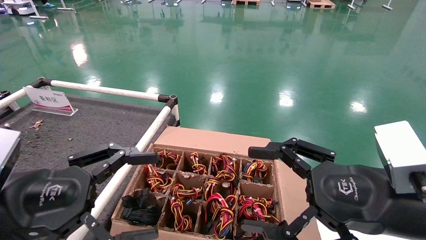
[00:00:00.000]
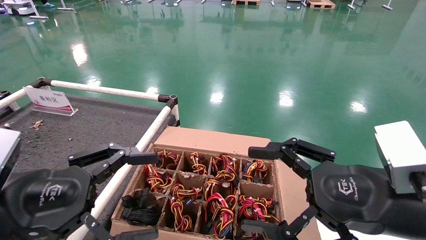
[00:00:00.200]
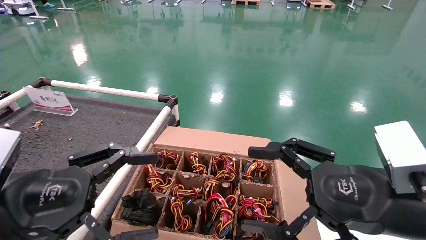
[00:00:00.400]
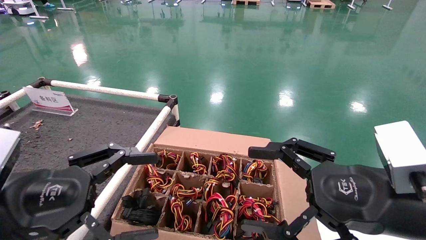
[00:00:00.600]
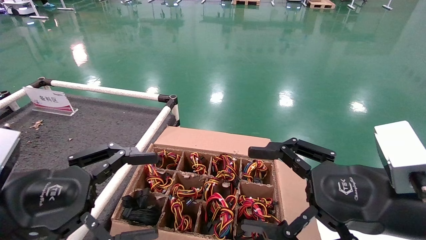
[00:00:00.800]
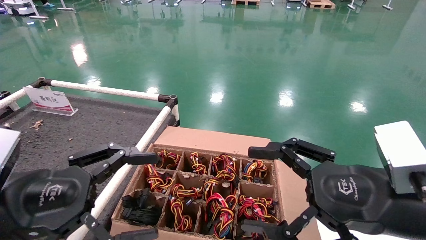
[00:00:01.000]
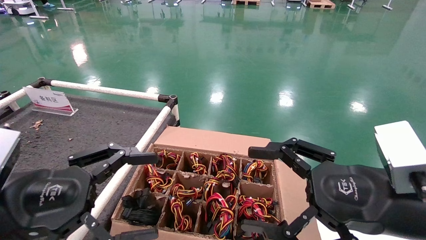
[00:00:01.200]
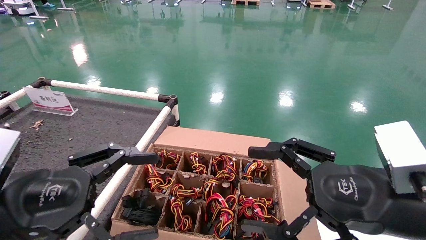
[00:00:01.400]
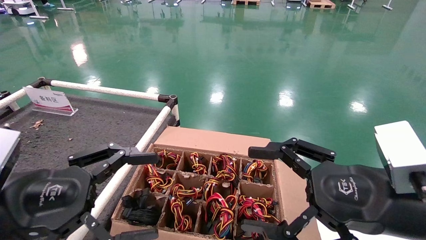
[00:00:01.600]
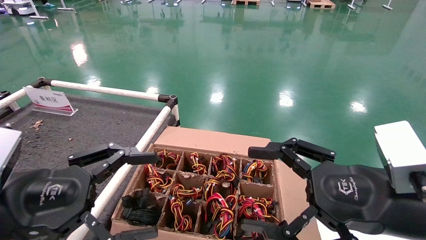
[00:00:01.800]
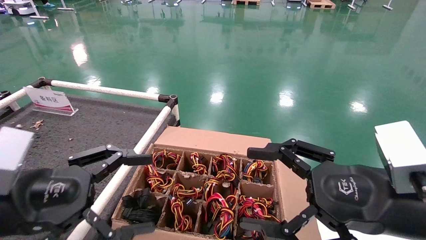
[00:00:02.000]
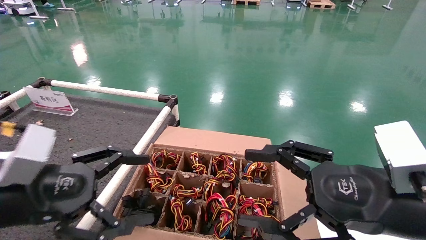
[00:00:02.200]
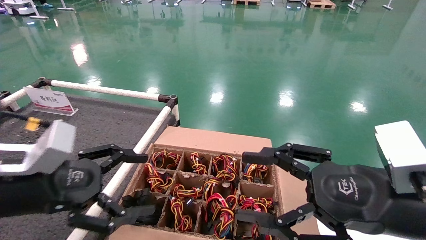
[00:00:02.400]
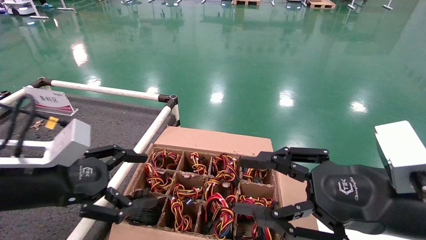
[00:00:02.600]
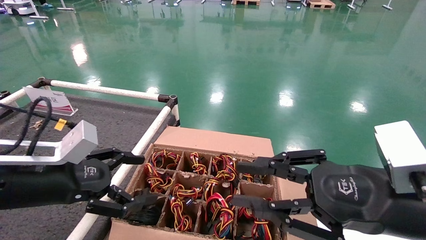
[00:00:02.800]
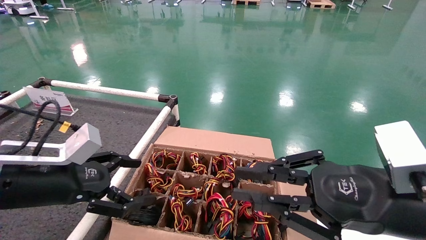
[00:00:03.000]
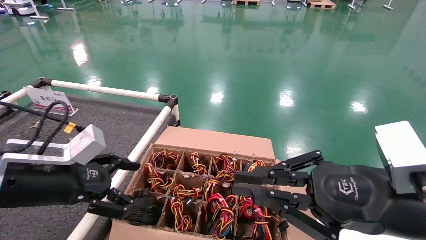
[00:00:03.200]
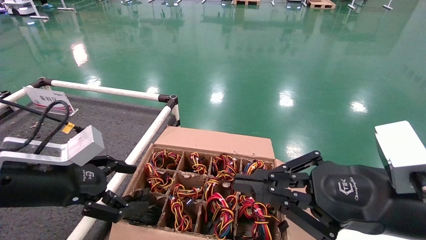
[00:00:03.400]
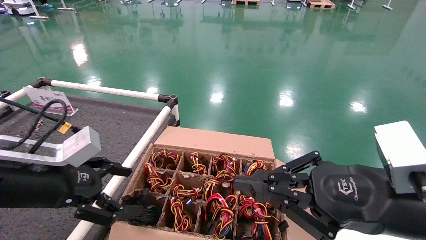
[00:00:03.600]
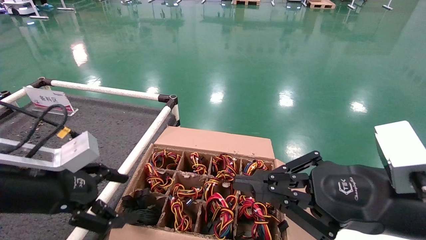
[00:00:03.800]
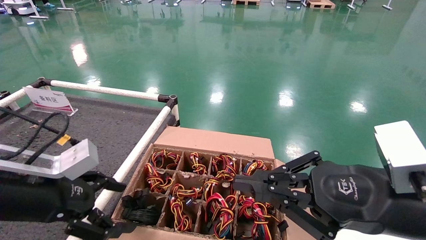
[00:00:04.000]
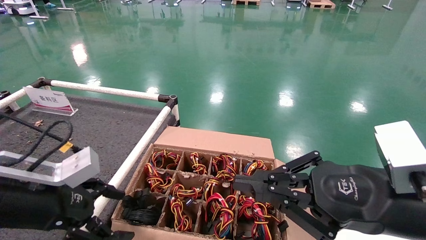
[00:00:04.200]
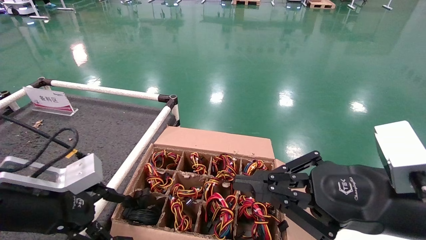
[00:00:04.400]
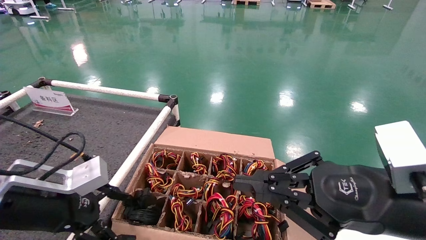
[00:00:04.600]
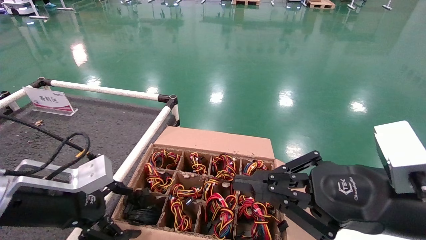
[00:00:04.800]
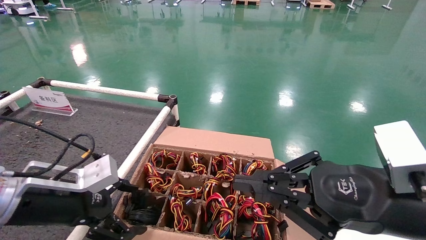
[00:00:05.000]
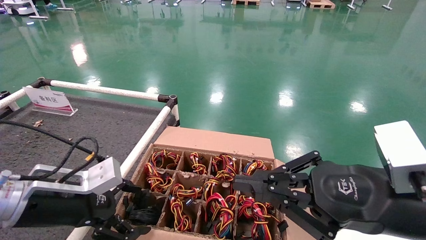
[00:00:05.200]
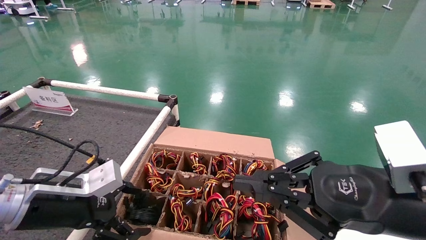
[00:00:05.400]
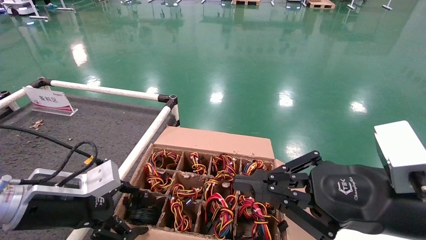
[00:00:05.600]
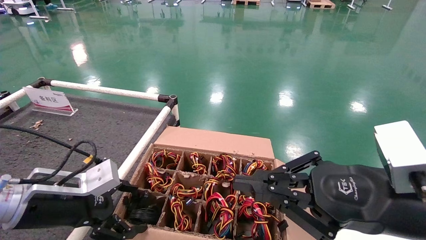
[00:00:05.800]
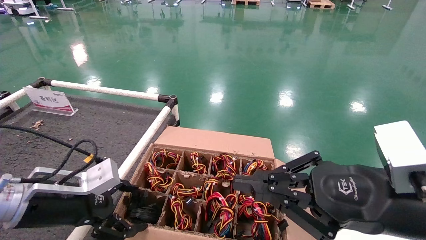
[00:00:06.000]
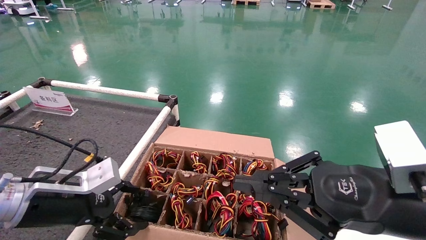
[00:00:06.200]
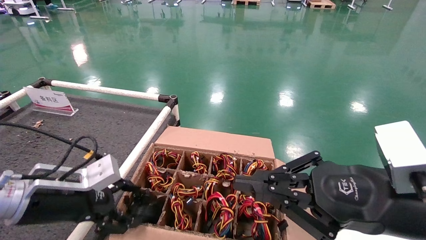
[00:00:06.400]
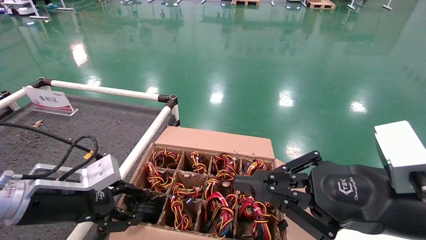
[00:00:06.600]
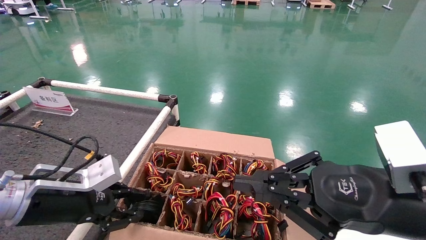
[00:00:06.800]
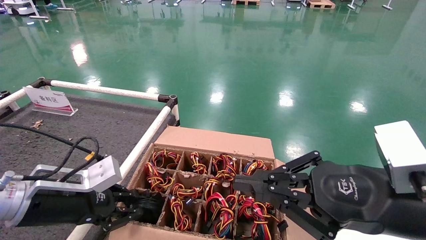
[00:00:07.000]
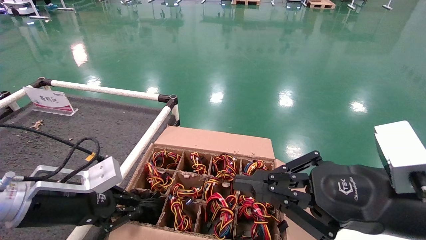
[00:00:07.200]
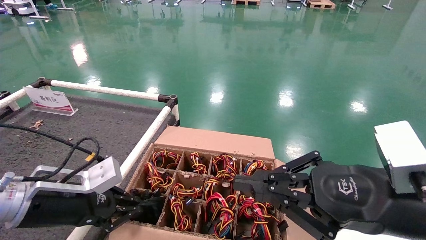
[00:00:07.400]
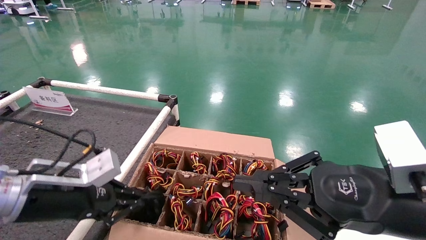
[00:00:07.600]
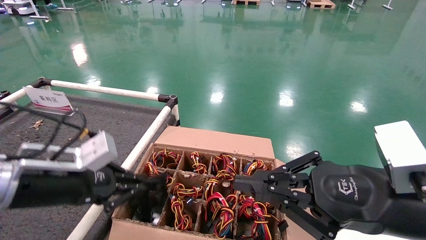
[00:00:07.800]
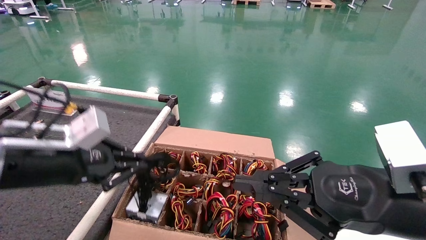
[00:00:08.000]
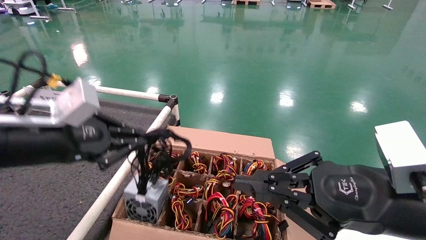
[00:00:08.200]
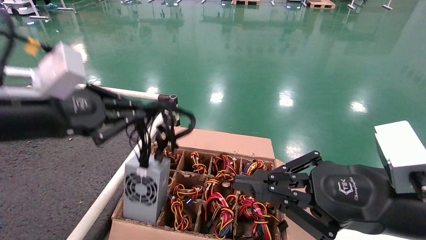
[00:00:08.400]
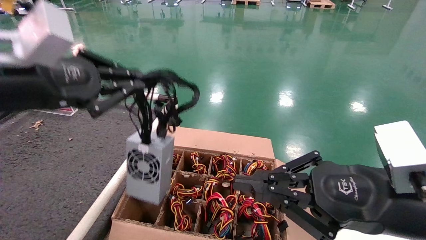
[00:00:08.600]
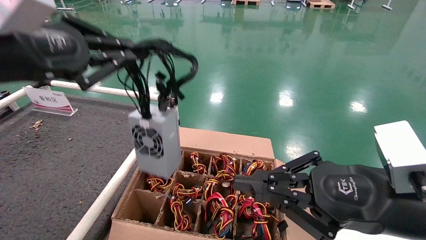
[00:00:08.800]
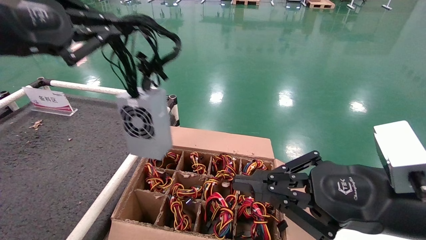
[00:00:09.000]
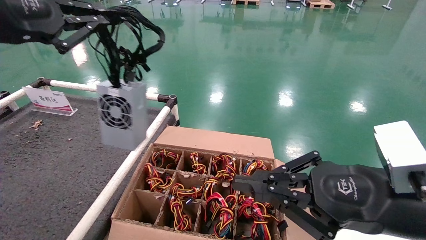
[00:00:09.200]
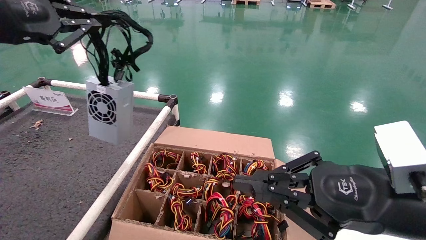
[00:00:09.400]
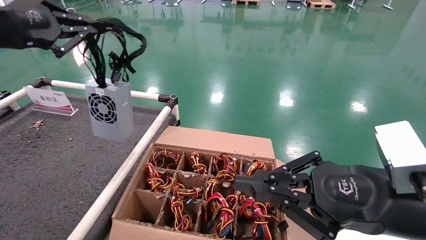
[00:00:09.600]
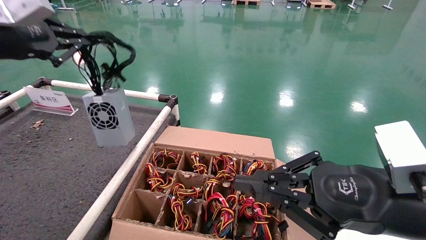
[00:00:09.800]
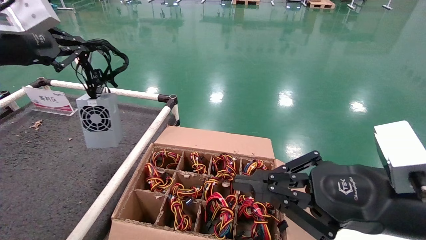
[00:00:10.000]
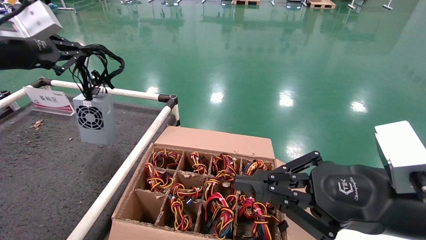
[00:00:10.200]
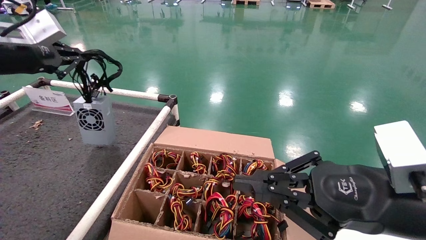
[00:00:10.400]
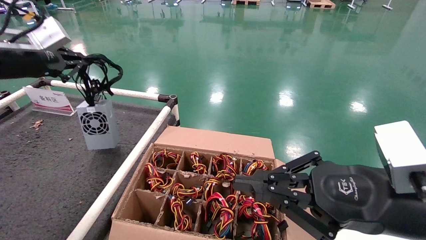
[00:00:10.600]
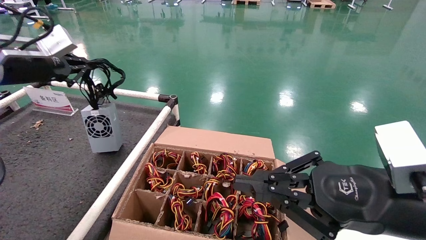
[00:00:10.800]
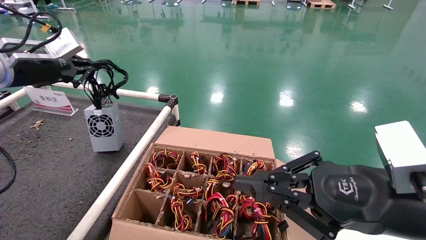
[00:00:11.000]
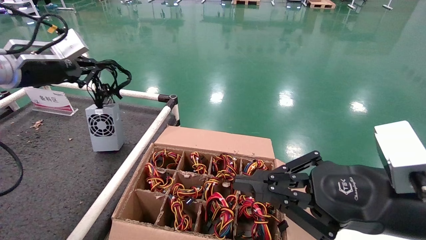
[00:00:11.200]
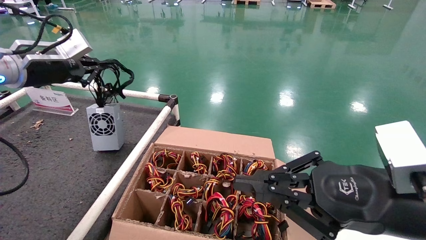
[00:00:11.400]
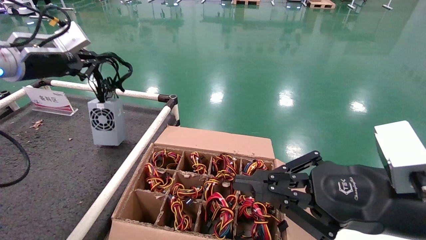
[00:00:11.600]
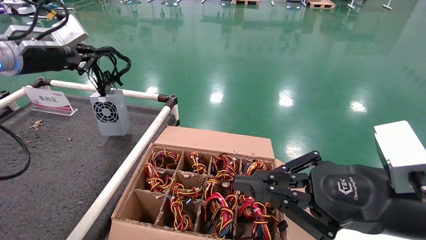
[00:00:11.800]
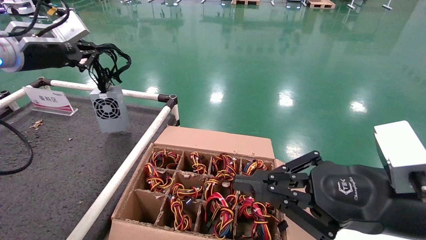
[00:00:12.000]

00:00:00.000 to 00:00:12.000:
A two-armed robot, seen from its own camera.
Step, 00:00:00.000 to 00:00:07.200: Grasp the battery.
00:00:00.000 to 00:00:01.600: The two grippers keep their place.
00:00:01.600 to 00:00:03.000: The right gripper closes. Meanwhile the left gripper is displaced forward by some 5 cm.
00:00:03.000 to 00:00:04.400: The right gripper closes up.
00:00:04.400 to 00:00:06.000: The grippers stay close to where they were, moving slightly.
00:00:06.000 to 00:00:07.600: The left gripper closes up.
00:00:07.600 to 00:00:09.000: The left gripper goes approximately 20 cm upward.
00:00:09.000 to 00:00:10.400: The left gripper heads forward and to the left, covering some 15 cm.
00:00:10.400 to 00:00:12.000: The left gripper heads forward, covering some 5 cm.

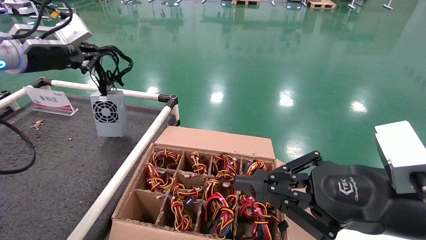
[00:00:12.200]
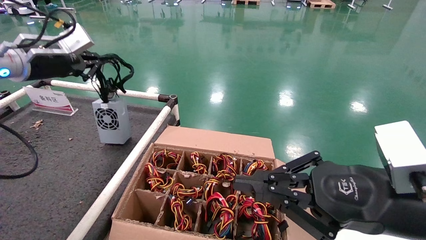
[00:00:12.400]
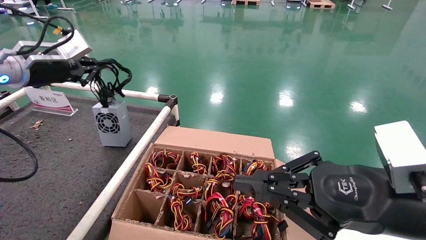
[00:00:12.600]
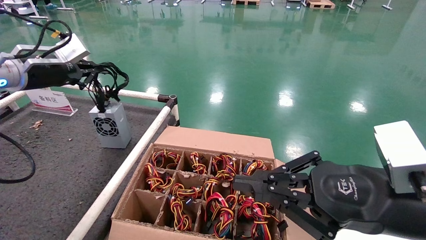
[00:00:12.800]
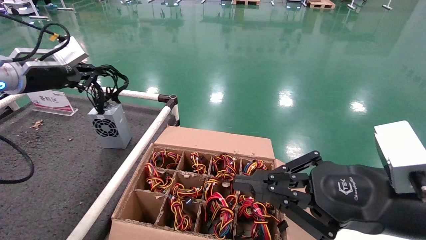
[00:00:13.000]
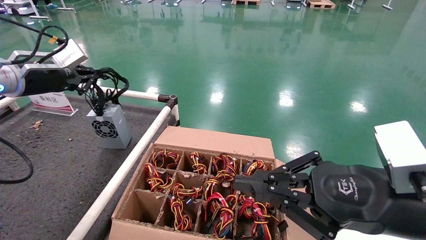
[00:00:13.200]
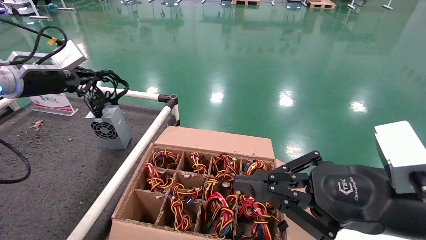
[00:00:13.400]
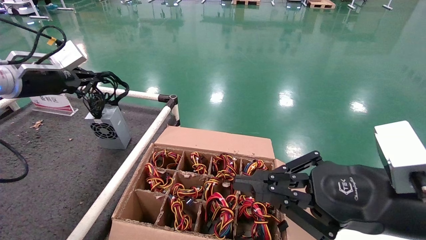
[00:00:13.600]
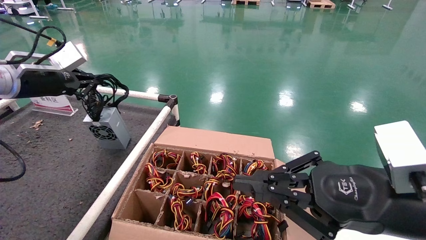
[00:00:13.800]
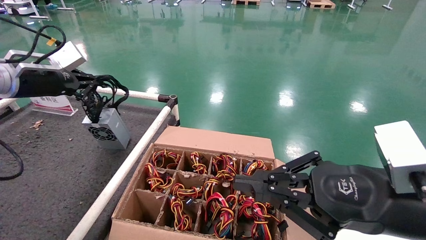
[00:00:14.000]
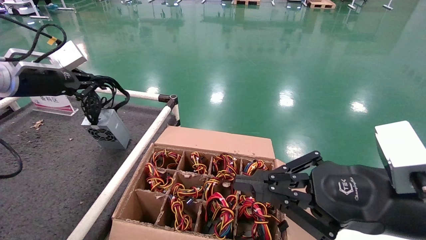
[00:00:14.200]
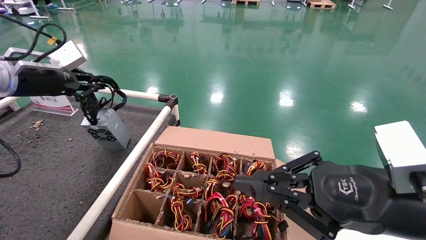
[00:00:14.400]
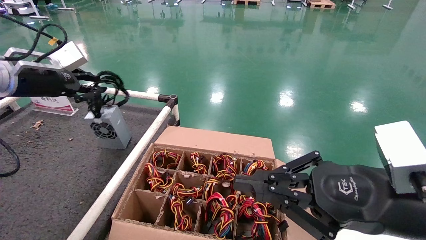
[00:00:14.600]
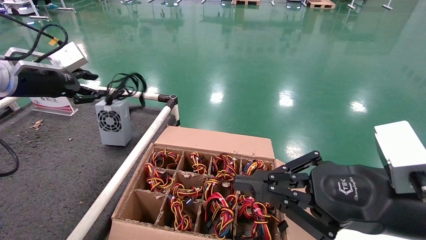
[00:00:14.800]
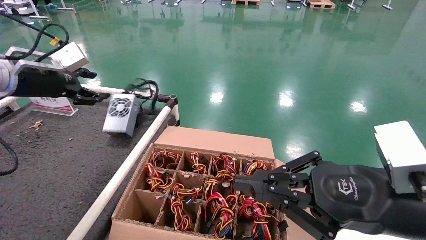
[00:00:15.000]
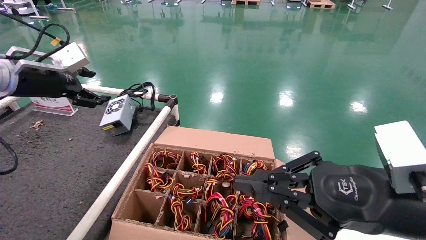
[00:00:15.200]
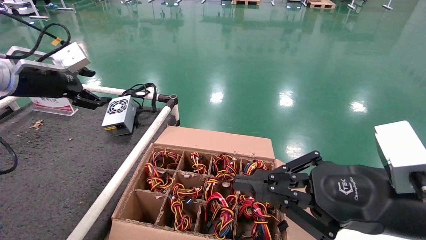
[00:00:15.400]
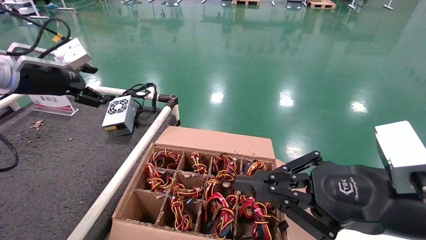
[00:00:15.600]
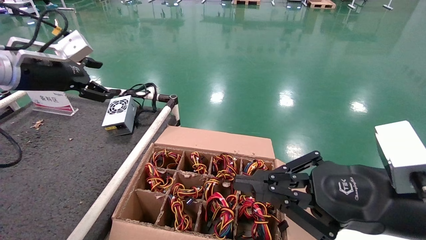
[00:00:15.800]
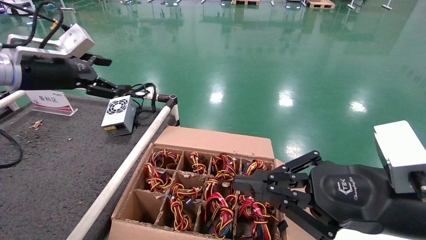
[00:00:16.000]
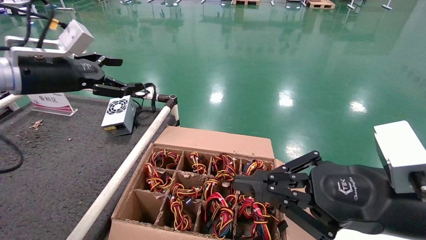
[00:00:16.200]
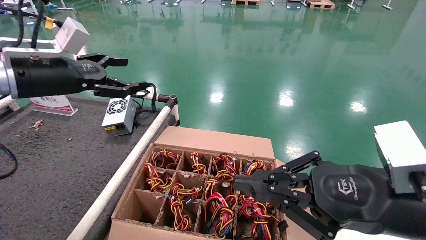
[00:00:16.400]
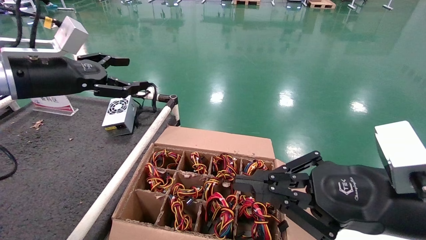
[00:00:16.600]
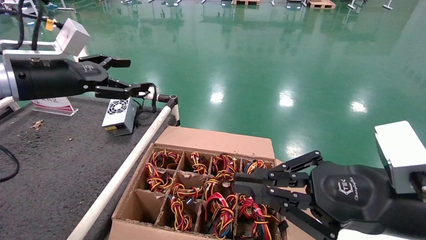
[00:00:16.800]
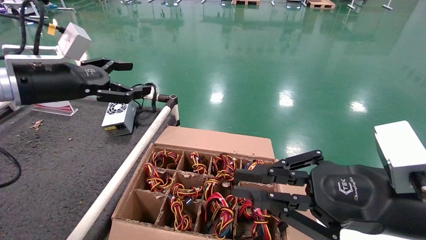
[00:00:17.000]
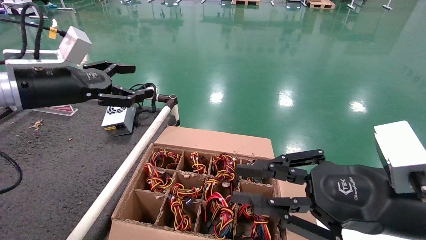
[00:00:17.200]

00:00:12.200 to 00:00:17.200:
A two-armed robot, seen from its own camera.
Step, 00:00:12.200 to 00:00:14.600: Place the battery on the shelf.
00:00:12.200 to 00:00:13.800: There are only small adjustments of the grippers.
00:00:13.800 to 00:00:15.600: The left gripper opens up.
00:00:15.600 to 00:00:17.200: The left gripper shifts by some 5 cm.
